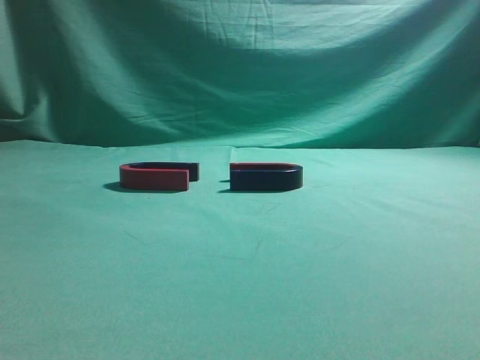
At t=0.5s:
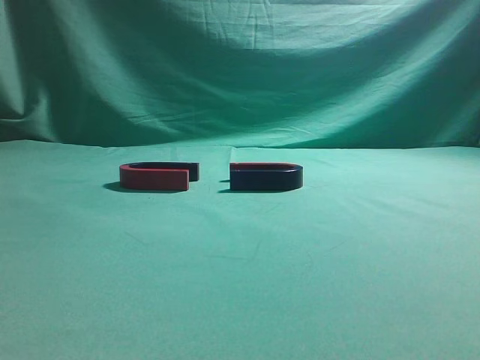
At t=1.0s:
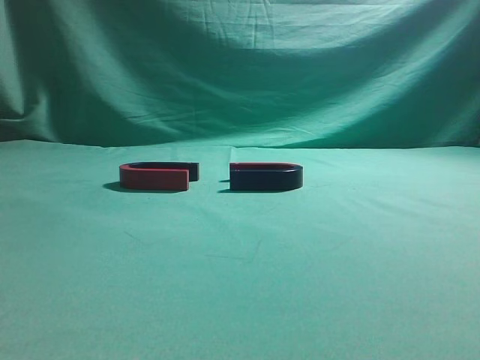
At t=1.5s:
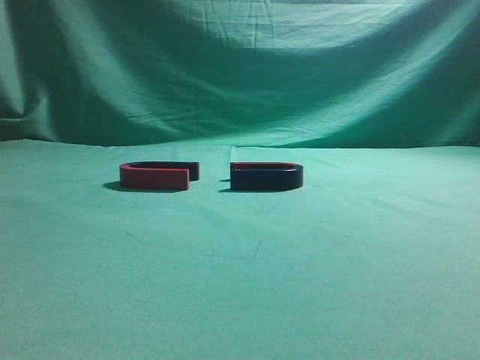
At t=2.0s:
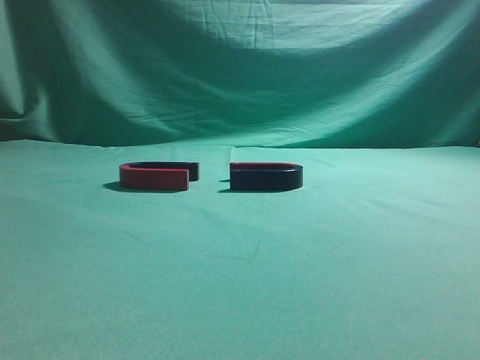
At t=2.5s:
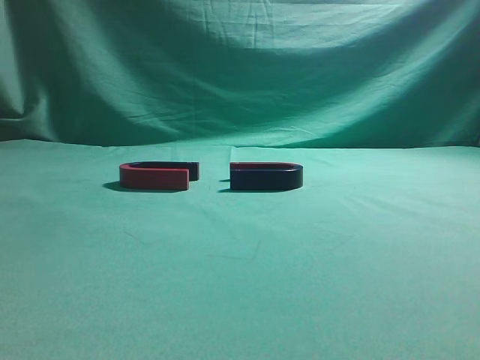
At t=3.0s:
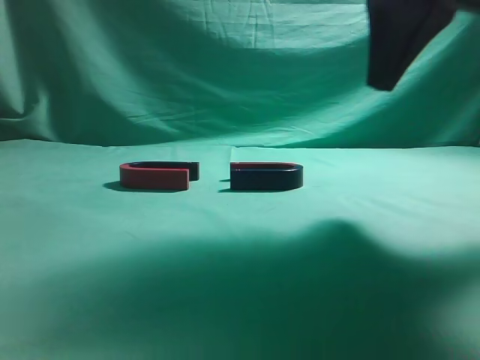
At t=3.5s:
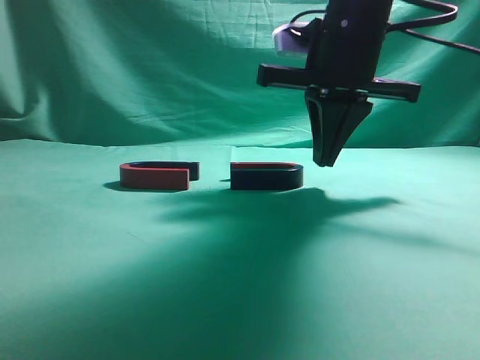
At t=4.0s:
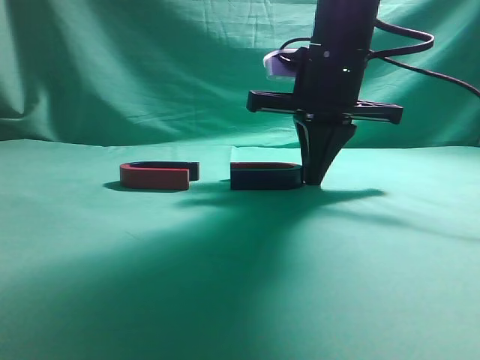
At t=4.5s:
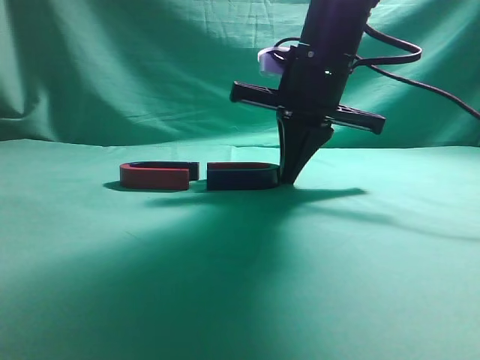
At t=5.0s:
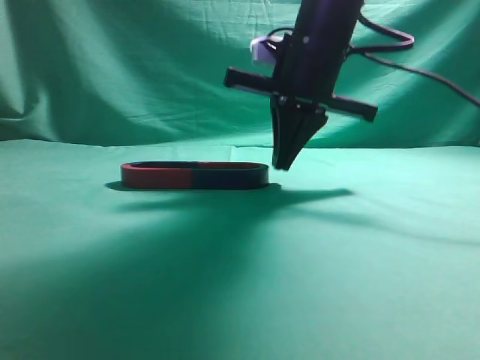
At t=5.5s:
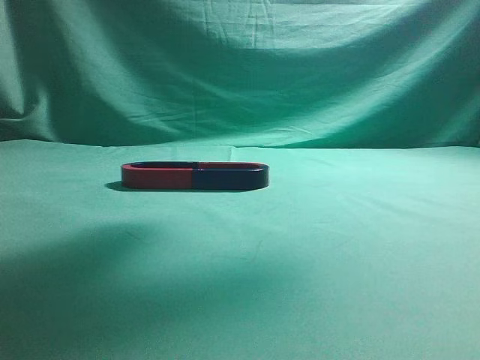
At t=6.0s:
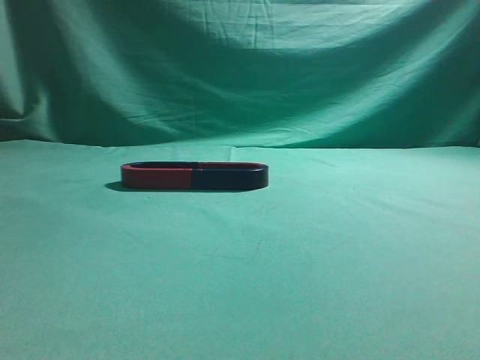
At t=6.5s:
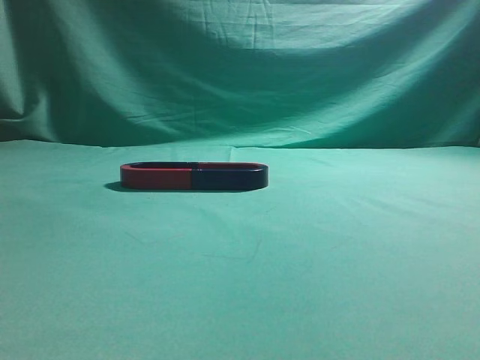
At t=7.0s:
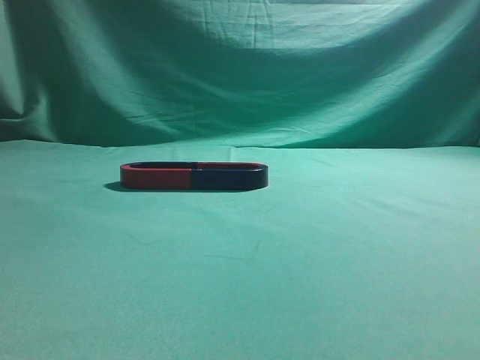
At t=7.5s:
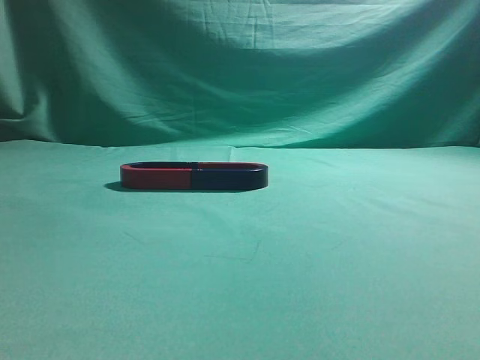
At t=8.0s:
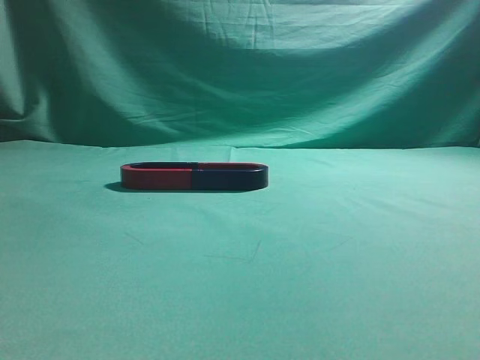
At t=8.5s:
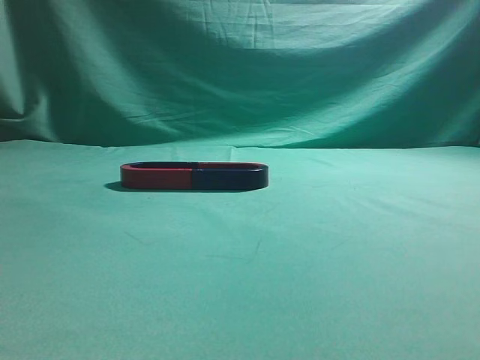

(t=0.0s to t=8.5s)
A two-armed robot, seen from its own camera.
Task of the whole recording: push the magnet on the table from its original position to another position.
Step, t=0.0s - t=5.0s: Push the magnet on the right to connect the magnet on the left.
t=2.0s - t=4.0s: The right gripper shifts some 35 cm forward, to the left and downward.
t=4.0s - t=6.5s: The right gripper travels backward, upward and to the right by roughly 40 cm.
